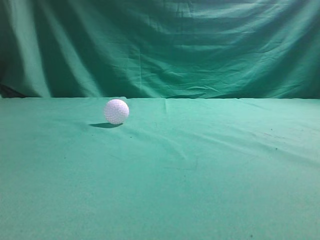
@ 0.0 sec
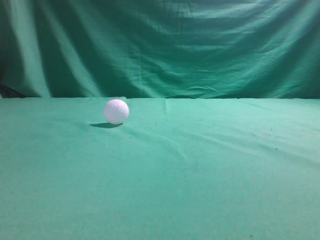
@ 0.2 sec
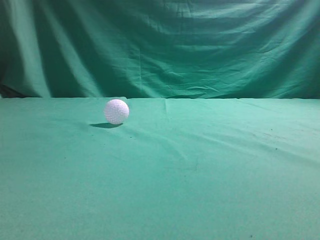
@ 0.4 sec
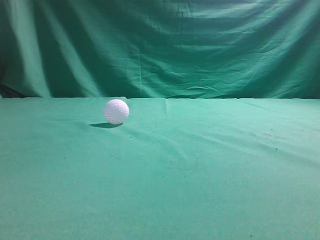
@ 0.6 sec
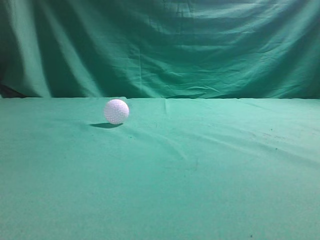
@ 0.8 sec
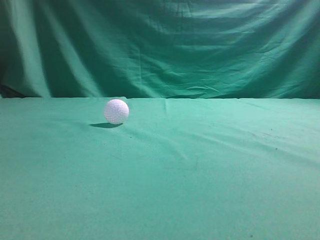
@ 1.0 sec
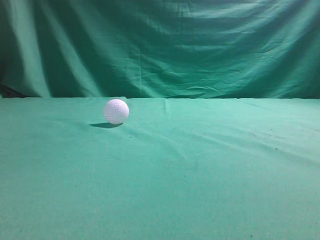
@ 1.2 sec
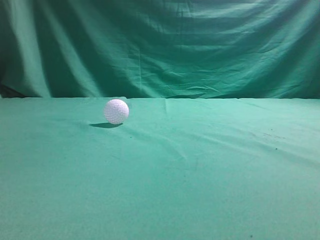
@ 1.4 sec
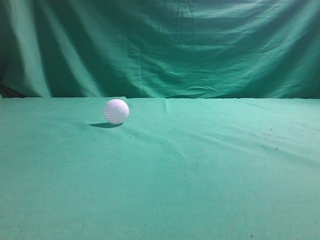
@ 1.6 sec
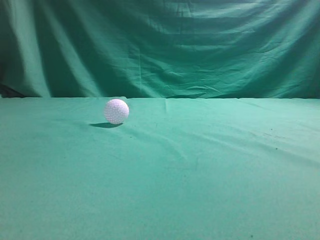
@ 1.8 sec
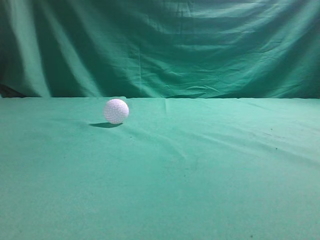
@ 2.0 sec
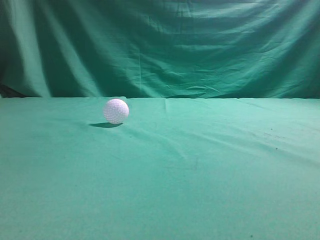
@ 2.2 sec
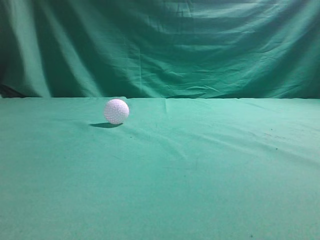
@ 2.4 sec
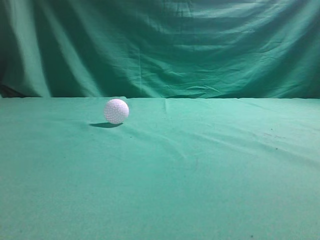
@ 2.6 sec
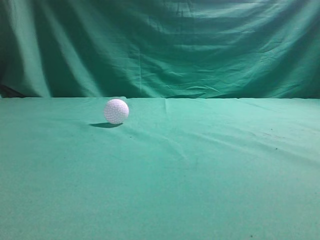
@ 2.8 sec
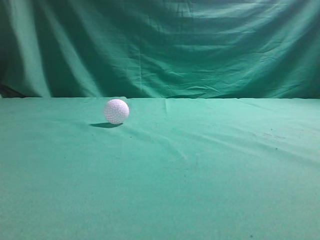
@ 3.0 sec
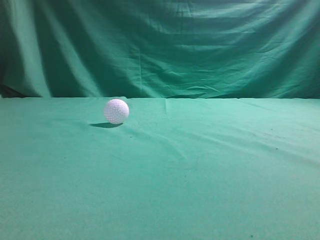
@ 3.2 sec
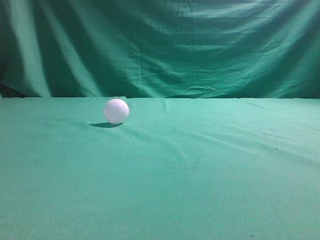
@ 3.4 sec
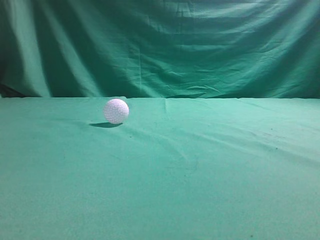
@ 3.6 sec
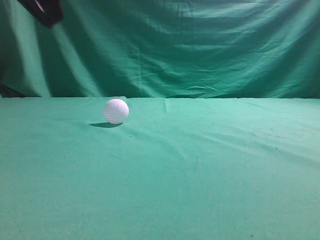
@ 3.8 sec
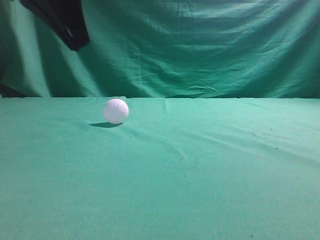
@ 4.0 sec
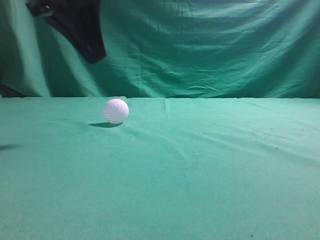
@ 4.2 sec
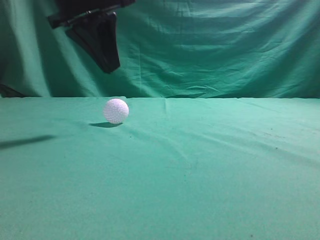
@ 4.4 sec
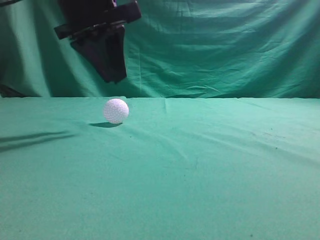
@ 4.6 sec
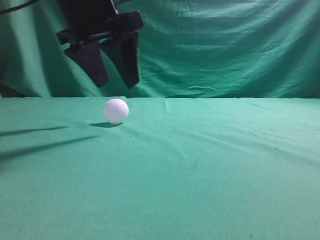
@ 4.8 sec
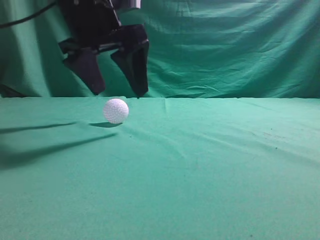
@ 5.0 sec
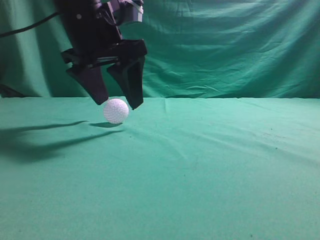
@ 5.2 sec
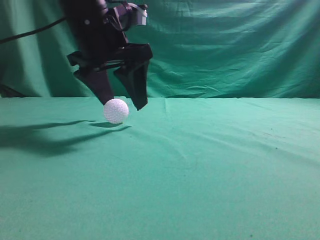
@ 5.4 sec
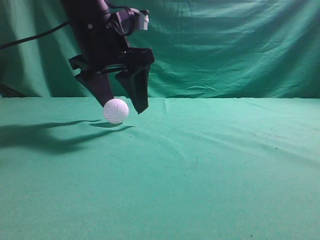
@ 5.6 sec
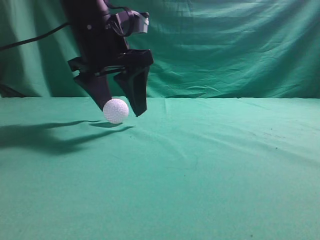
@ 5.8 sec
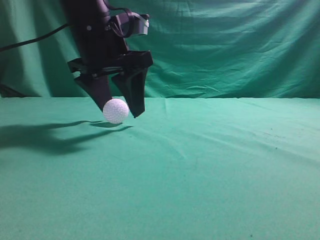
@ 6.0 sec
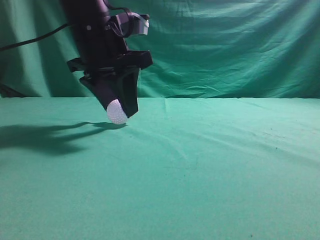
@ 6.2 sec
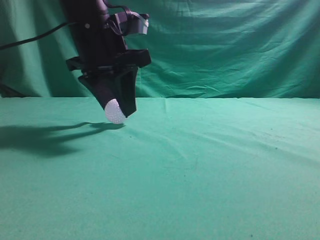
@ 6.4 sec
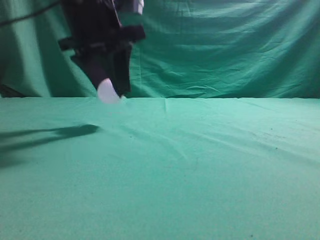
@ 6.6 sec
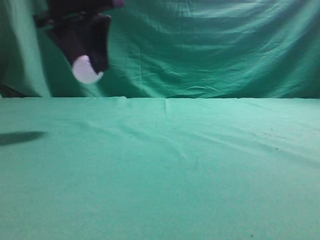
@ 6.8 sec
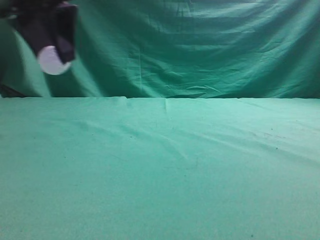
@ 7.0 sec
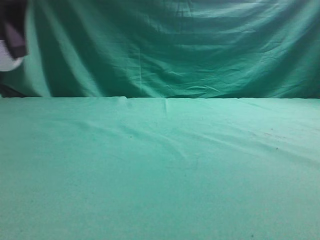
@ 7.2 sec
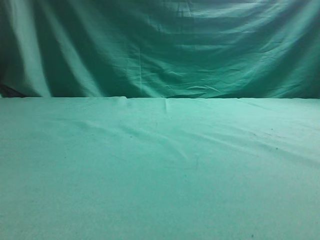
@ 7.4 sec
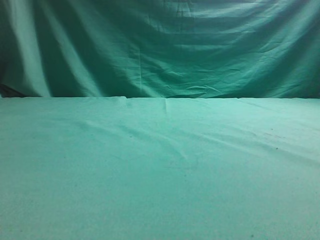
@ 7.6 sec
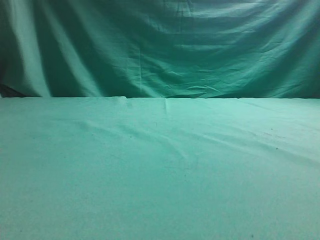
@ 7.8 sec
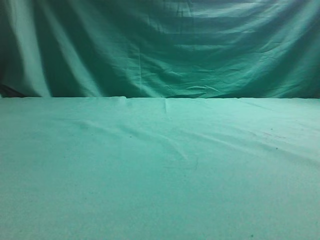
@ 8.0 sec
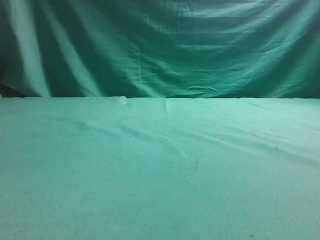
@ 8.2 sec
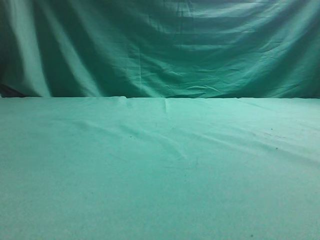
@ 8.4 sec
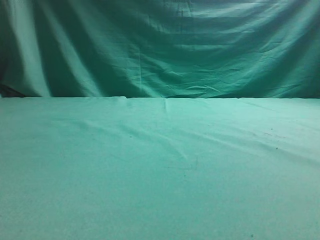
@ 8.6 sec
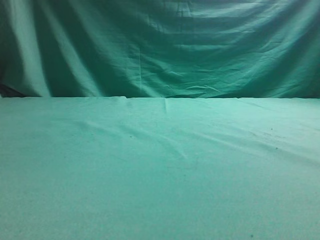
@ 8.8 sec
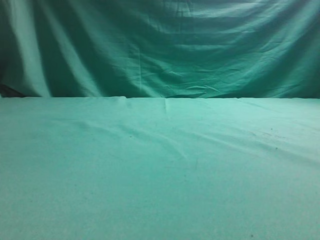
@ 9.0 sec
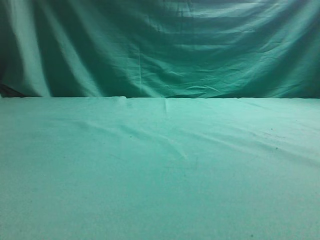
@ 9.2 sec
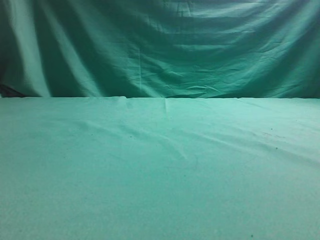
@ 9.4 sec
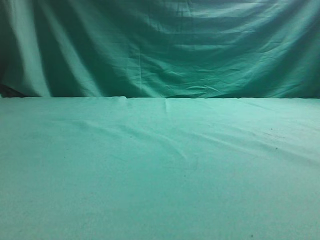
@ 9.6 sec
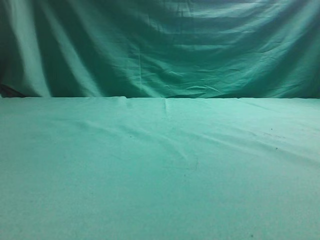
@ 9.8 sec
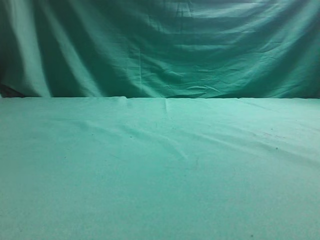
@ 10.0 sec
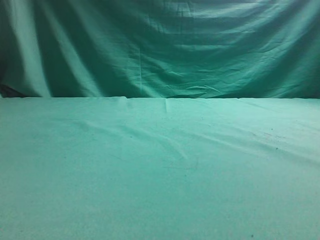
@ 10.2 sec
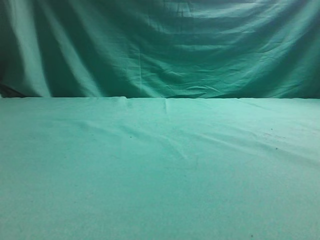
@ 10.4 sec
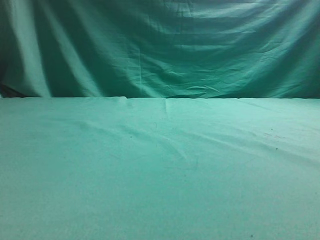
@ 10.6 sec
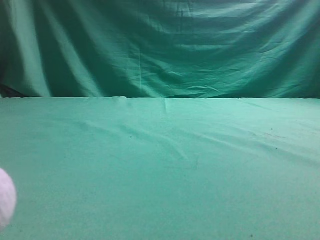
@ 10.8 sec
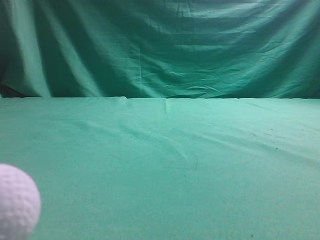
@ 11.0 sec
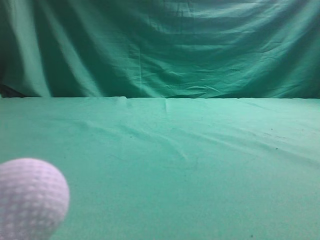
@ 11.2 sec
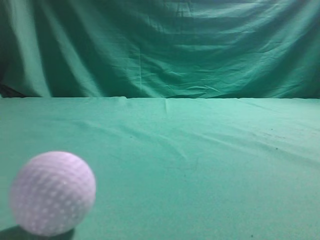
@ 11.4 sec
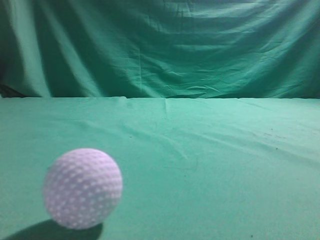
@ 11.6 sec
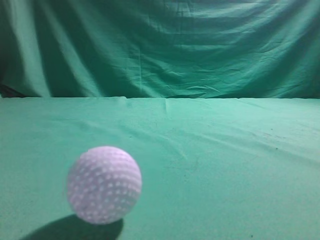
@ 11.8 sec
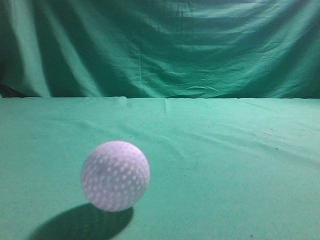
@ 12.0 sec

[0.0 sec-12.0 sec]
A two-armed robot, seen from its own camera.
Task of the whole recording: pick up the ball and place it on the plate, then pick up the ball from the plate and put it in the center of the table.
Step, 0.0 sec to 6.4 sec: Grab the spherical object with your left arm.
Step, 6.6 sec to 10.0 sec: Place the sphere on the white object.
3.0 sec to 4.4 sec: The right gripper changes place by approximately 5 cm. Meanwhile the left gripper travels forward and to the right by approximately 30 cm.
4.4 sec to 6.0 sec: The left gripper shifts roughly 5 cm downward, and opens.
6.0 sec to 7.6 sec: The left gripper moves to the left, some 20 cm, and closes.
10.4 sec to 12.0 sec: The right gripper opens, while the left gripper shifts some 10 cm backward.

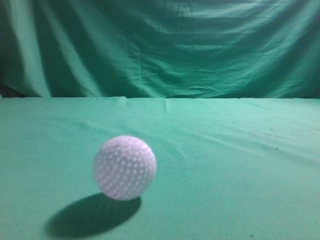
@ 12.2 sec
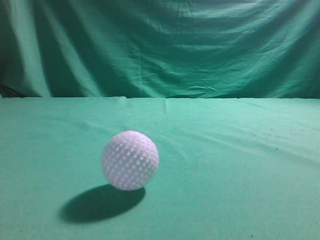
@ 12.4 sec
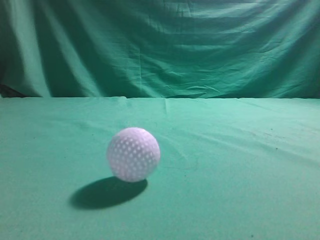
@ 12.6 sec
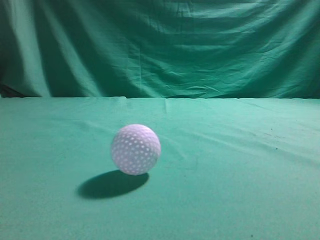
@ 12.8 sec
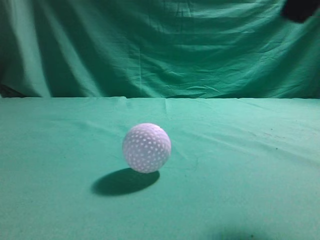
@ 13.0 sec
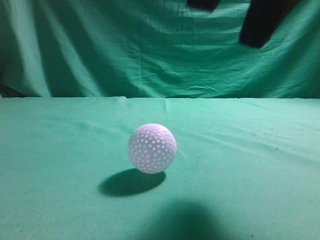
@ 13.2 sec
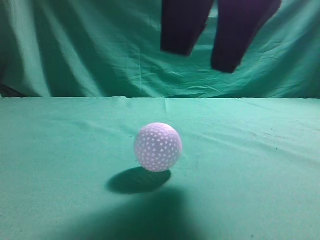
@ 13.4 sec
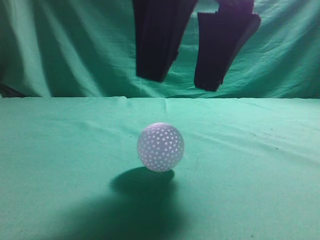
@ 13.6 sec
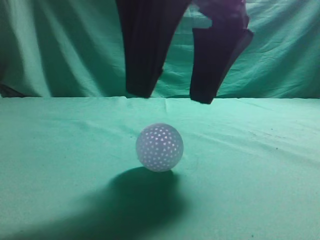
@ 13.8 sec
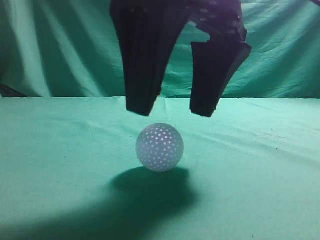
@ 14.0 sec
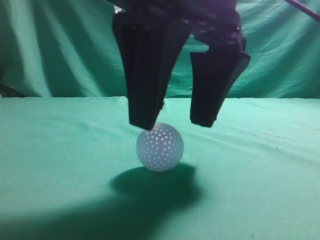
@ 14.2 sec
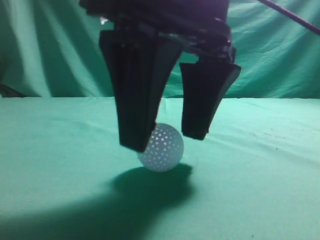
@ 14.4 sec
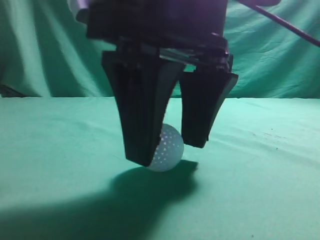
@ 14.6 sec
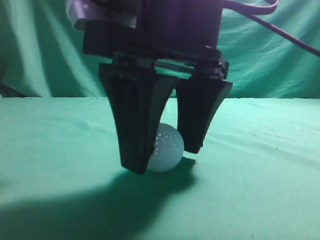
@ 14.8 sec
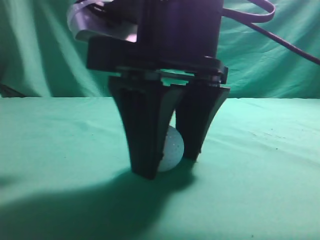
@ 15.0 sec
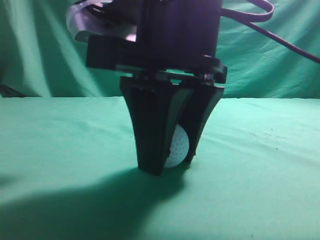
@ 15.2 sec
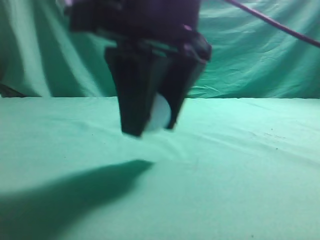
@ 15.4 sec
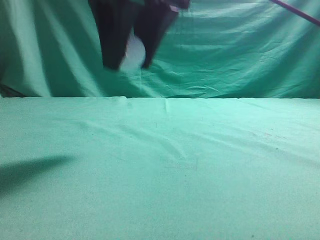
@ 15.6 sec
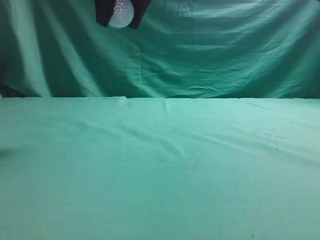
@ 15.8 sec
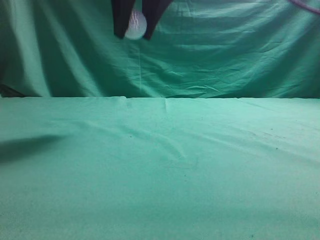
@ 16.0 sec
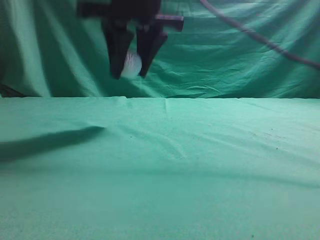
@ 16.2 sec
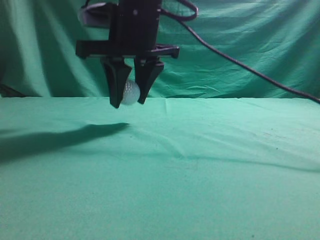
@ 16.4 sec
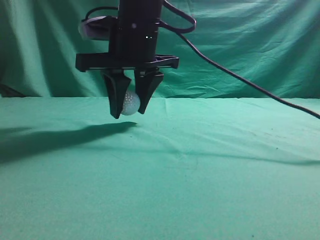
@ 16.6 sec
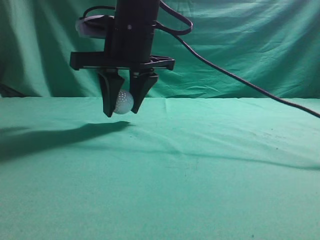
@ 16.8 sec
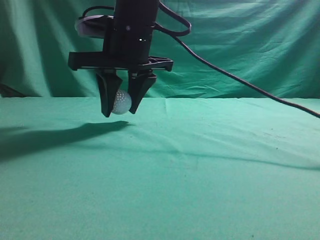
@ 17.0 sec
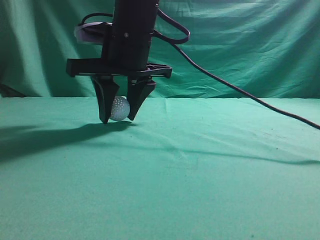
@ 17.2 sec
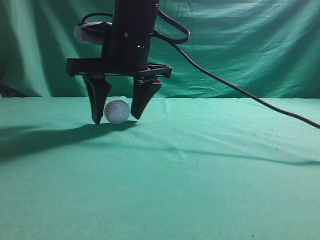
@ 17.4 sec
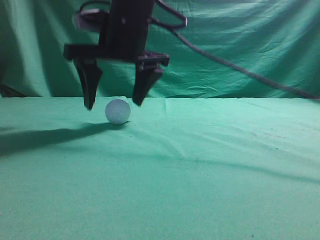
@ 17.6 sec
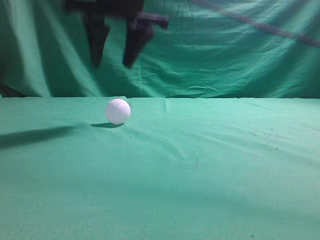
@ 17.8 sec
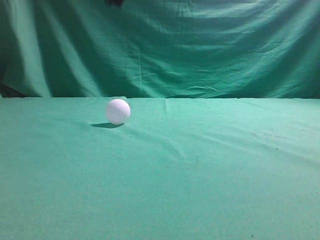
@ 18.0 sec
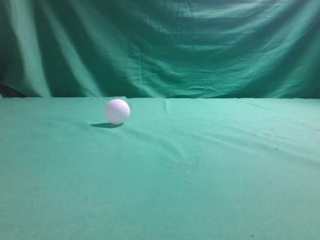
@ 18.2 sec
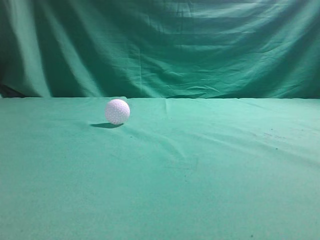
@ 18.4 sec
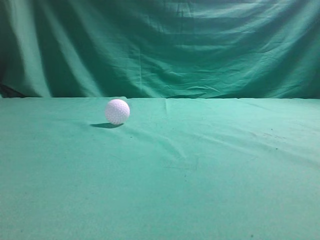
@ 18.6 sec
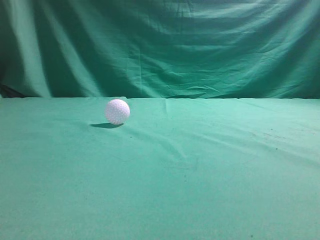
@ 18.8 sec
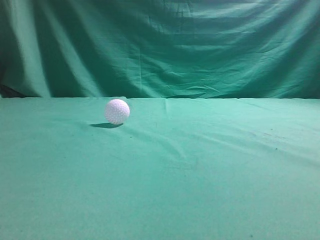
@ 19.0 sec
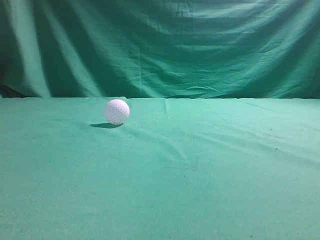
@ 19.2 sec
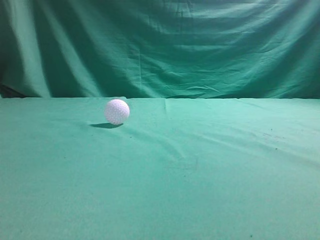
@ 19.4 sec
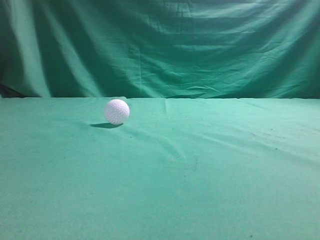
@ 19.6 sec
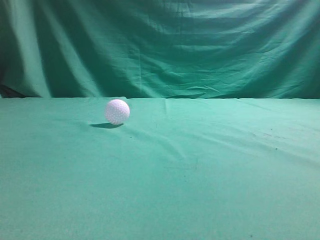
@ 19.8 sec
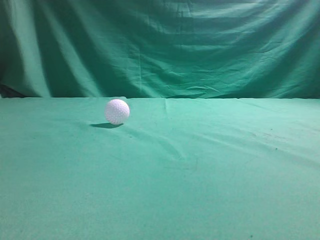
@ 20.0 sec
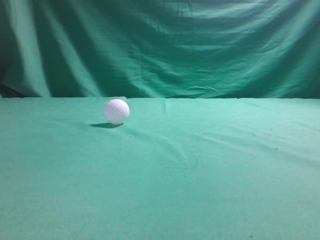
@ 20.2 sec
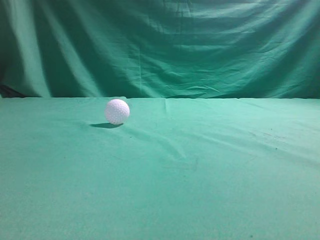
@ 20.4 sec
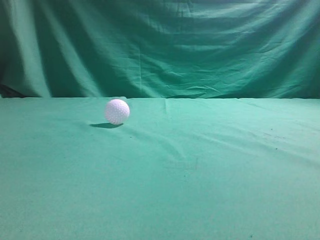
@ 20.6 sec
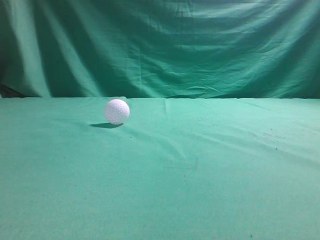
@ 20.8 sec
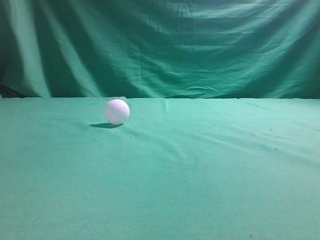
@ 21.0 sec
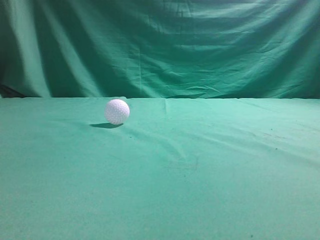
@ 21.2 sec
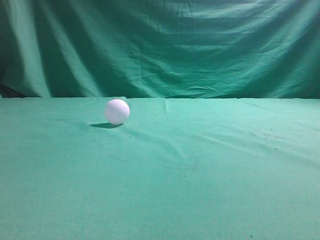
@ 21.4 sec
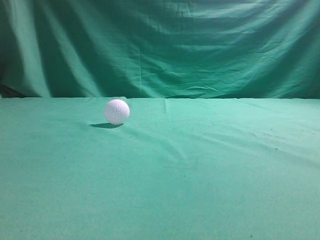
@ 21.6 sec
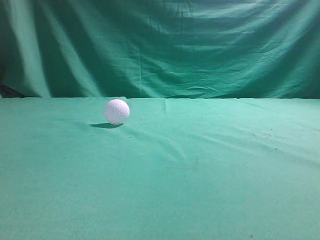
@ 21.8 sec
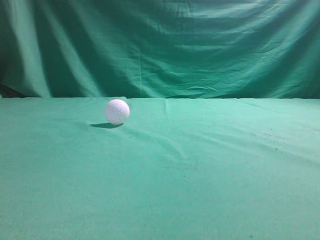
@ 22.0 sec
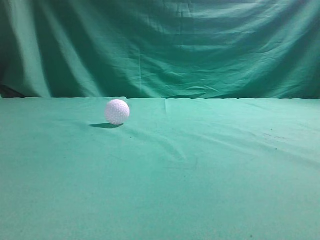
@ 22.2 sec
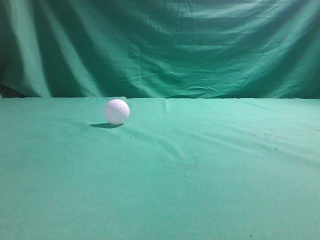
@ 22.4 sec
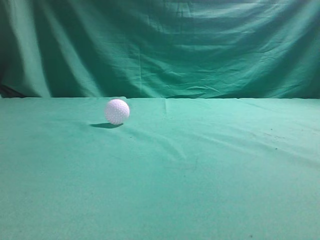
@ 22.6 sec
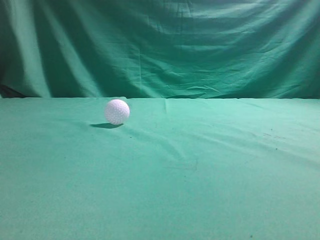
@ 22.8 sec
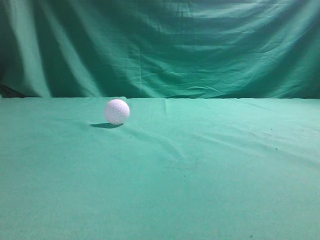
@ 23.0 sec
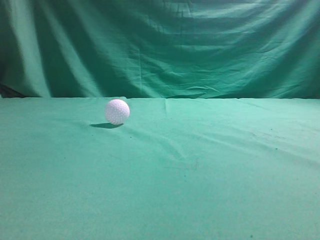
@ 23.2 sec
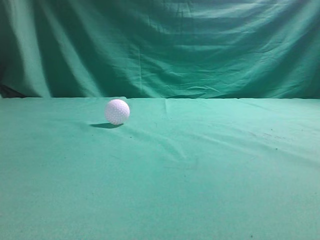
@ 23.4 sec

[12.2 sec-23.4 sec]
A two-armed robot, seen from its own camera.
Task of the whole recording: pick up the ball and place it on the plate, then pick up the ball from the plate and put it in the center of the table.
Step, 12.2 sec to 15.2 sec: Grab the rolling spherical object.
Step, 15.6 sec to 17.6 sec: Put the picked-up object on the table.
12.2 sec to 13.8 sec: The right gripper travels to the left by about 20 cm.
13.8 sec to 15.4 sec: The right gripper moves approximately 5 cm, and closes its fingers.
15.4 sec to 17.0 sec: The right gripper shifts approximately 15 cm forward.
17.0 sec to 18.6 sec: The left gripper travels backward by about 5 cm; the right gripper goes some 35 cm upward, to the right and backward, and closes.
